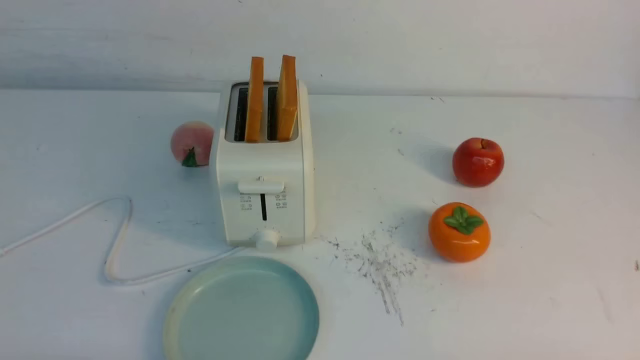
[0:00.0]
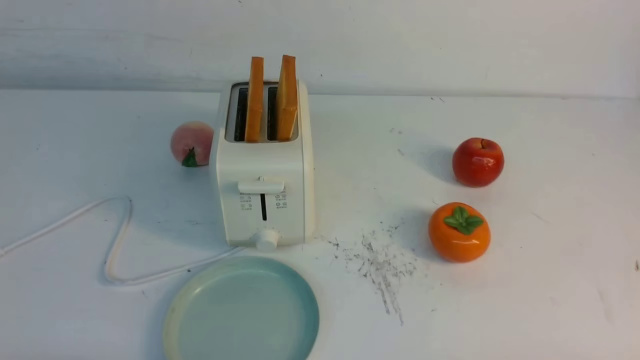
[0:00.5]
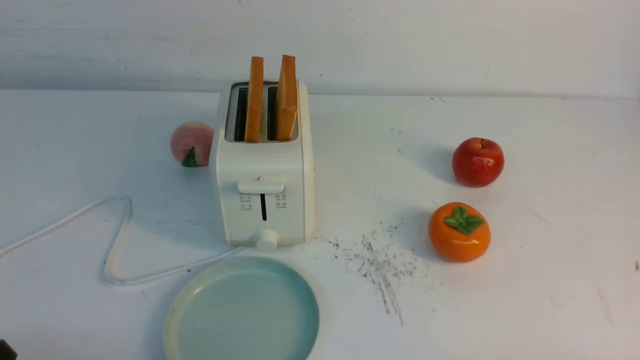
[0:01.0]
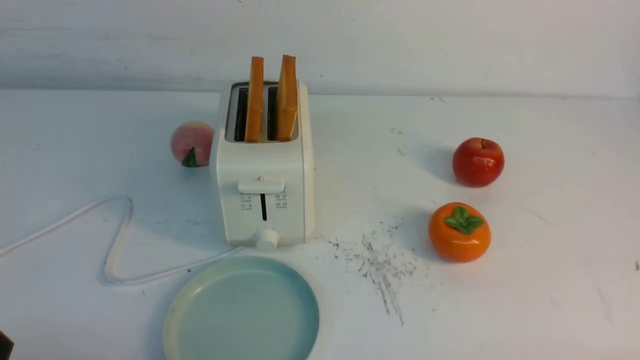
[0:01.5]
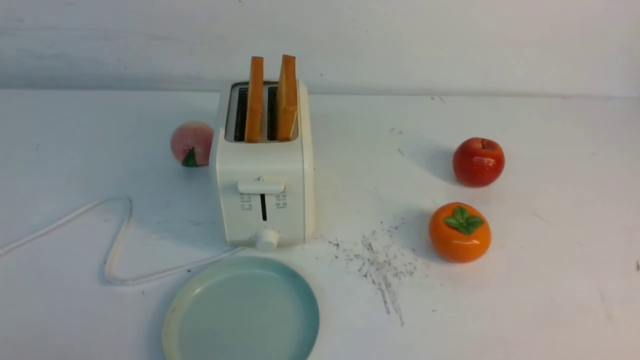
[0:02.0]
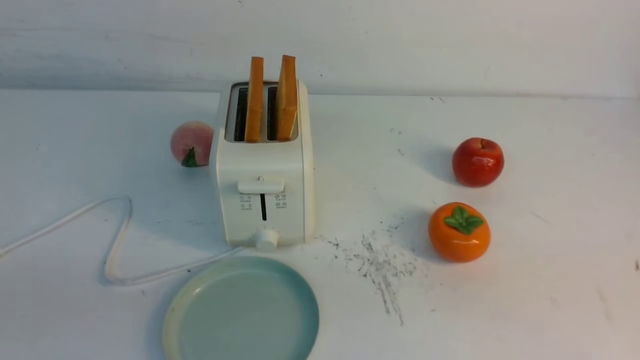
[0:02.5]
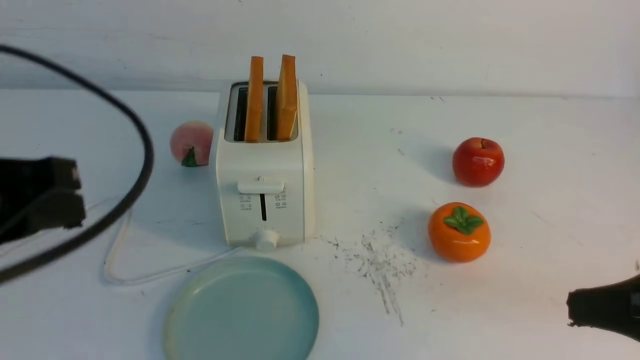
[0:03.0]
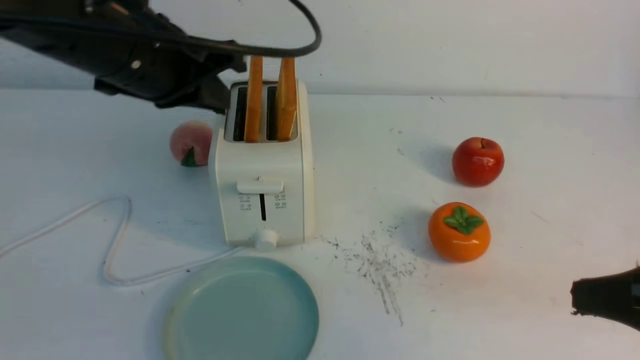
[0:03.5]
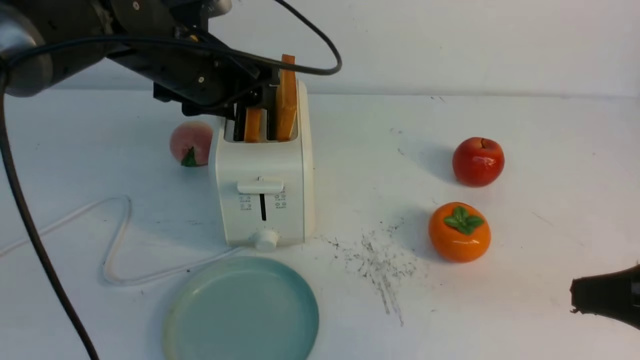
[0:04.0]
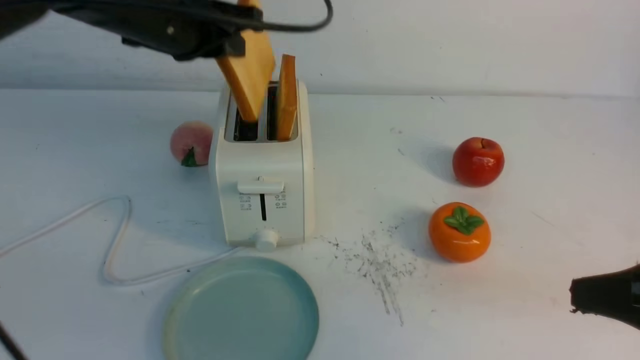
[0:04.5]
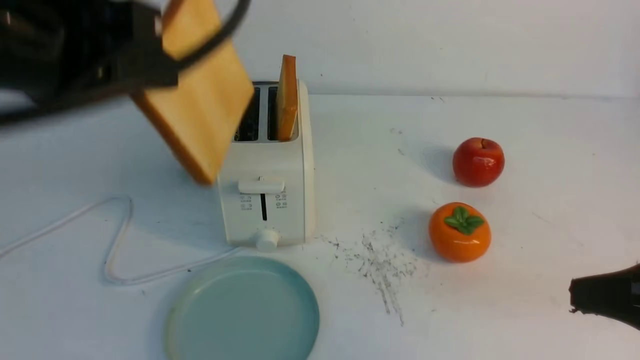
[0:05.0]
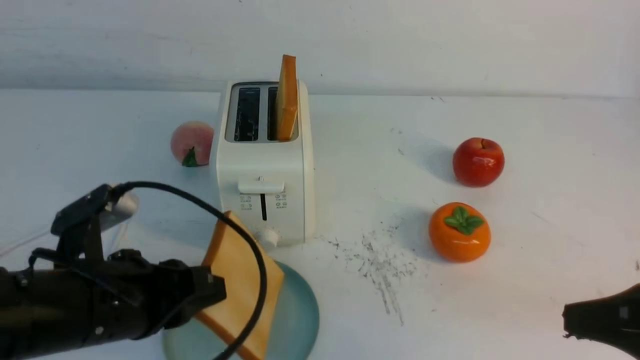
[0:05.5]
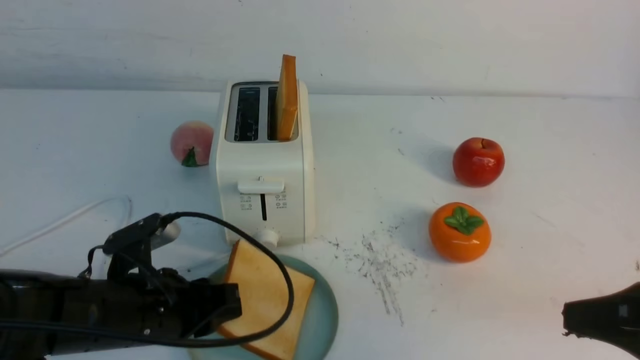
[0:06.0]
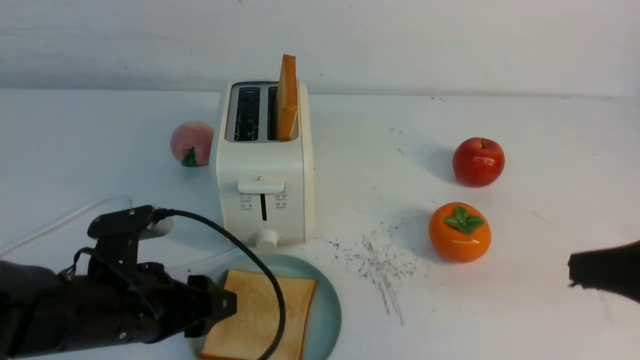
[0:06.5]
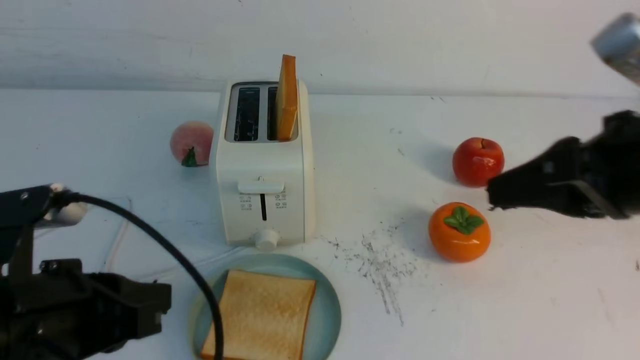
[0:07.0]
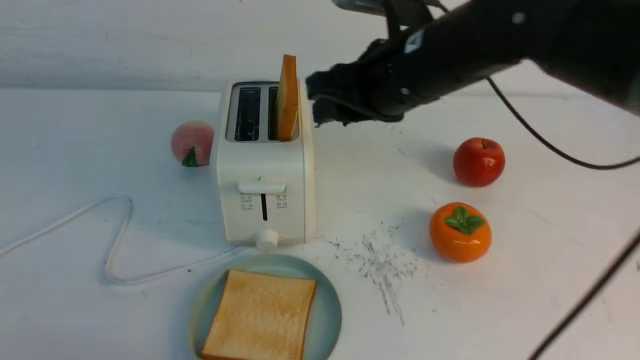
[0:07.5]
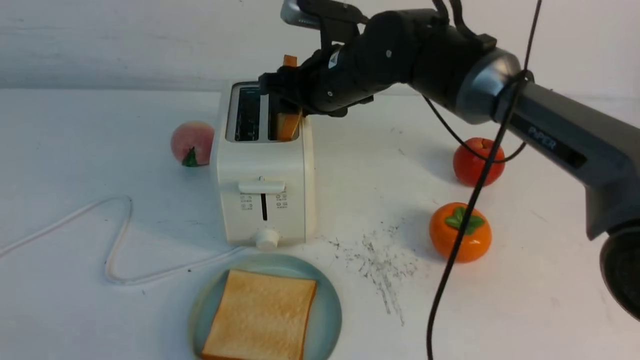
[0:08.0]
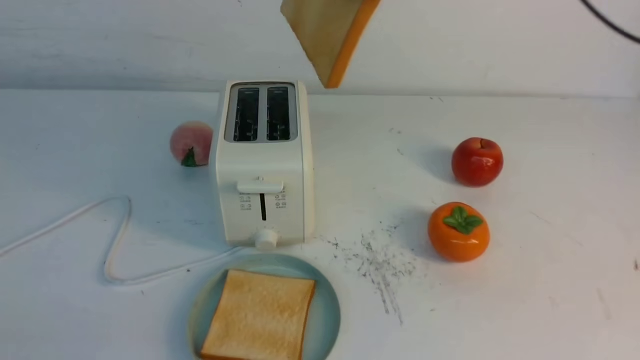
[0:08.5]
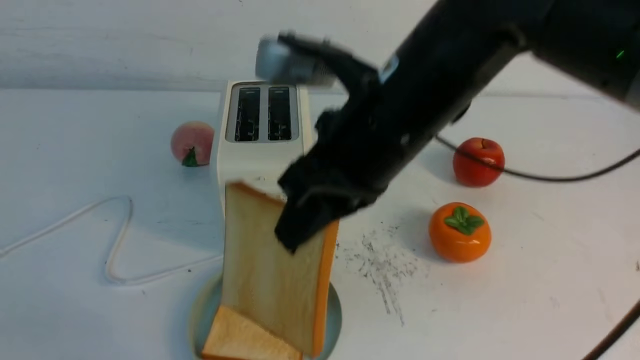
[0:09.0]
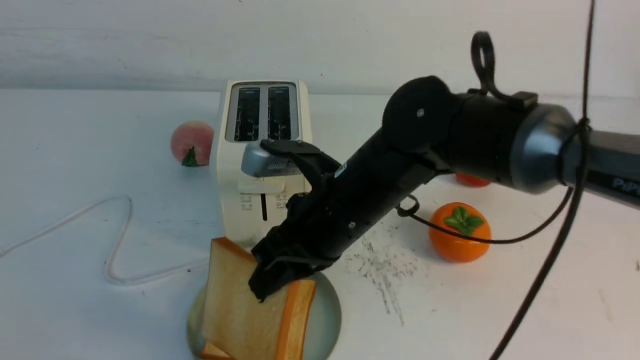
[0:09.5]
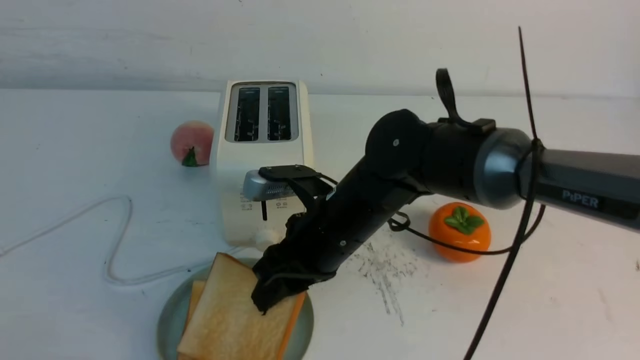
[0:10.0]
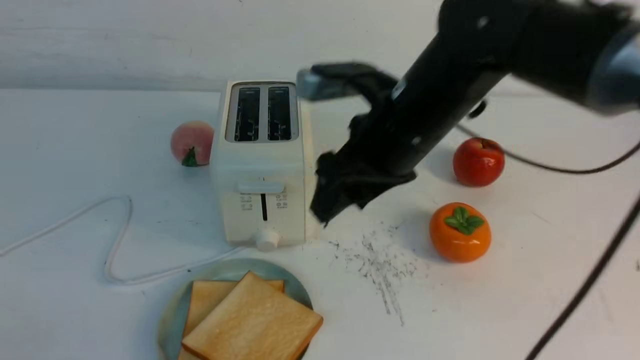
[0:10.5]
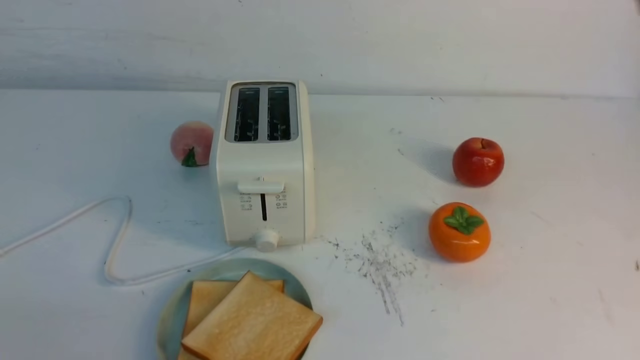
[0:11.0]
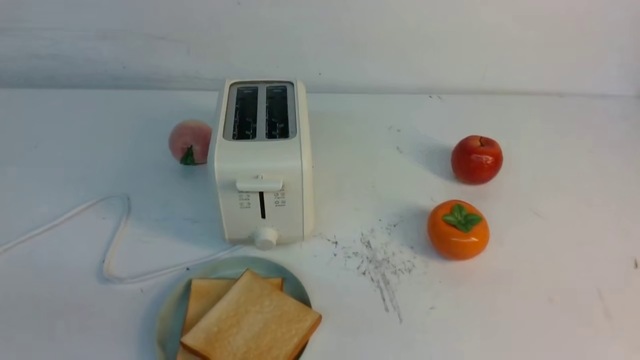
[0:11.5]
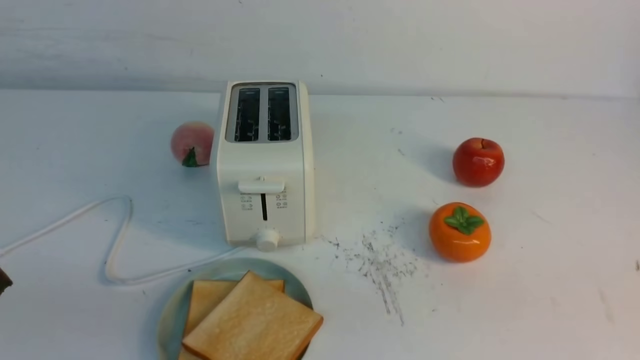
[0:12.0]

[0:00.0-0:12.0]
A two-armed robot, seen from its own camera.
Task of the whole recording: take toasted bread from bread machine on white table place on plate.
Step, 0:00.0 to 0:04.5: use the left arm to take out a slice of bread.
Step, 0:05.0 to 0:06.5: use the left arm to put a slice of bread into the empty plate.
Step, 0:07.0 to 0:08.0: use the right arm to take out a slice of bread.
Step, 0:08.5 to 0:10.0: use the right arm to put a slice of bread into the plate.
0:02.0 to 0:04.0: The left gripper heads forward, covering approximately 35 cm, and opens. Meanwhile the right gripper travels upward and forward by roughly 15 cm.
0:04.0 to 0:06.0: The left gripper moves backward and downward, about 25 cm, and closes up.
0:06.0 to 0:08.0: The right gripper is displaced forward and to the left by some 35 cm, and opens. Meanwhile the left gripper shifts roughly 25 cm backward, upward and to the left, and closes up.
0:08.0 to 0:10.0: The right gripper shifts some 15 cm backward and downward, and closes and opens again.
0:10.0 to 0:12.0: The right gripper goes roughly 40 cm to the right and backward, and closes.
